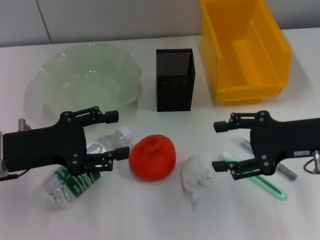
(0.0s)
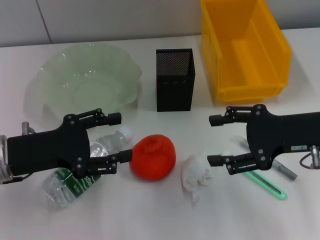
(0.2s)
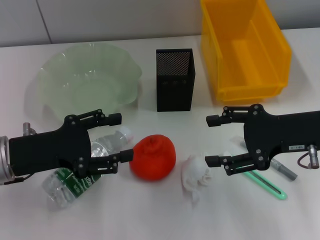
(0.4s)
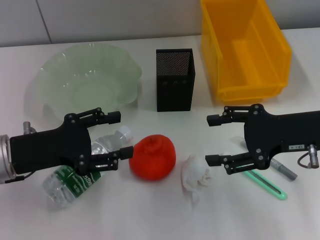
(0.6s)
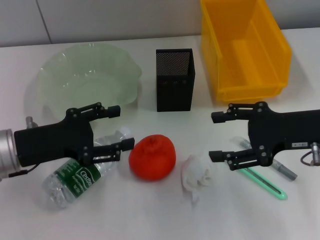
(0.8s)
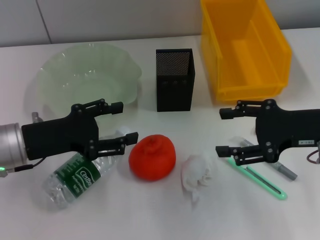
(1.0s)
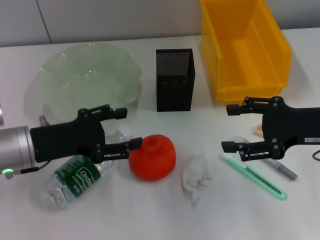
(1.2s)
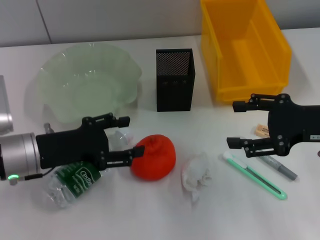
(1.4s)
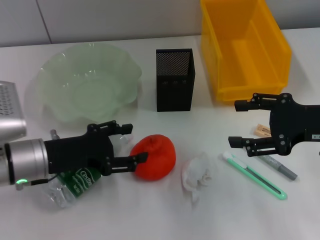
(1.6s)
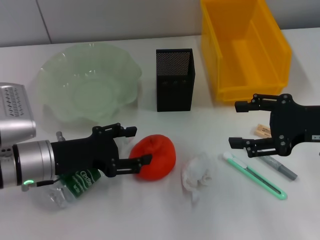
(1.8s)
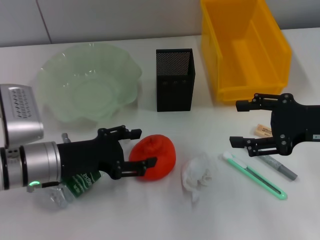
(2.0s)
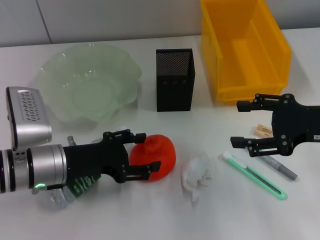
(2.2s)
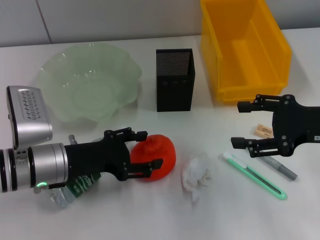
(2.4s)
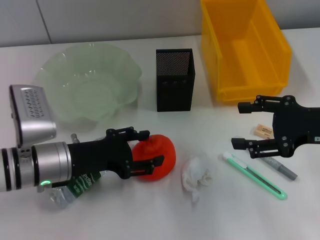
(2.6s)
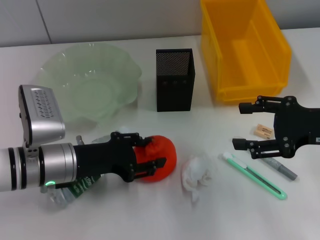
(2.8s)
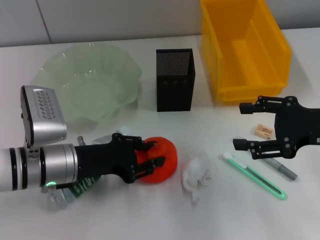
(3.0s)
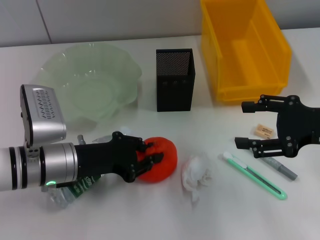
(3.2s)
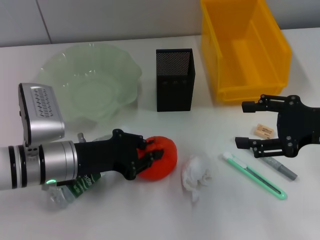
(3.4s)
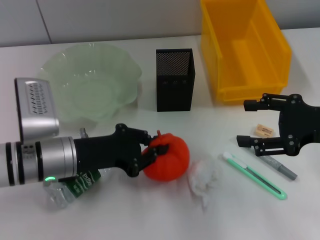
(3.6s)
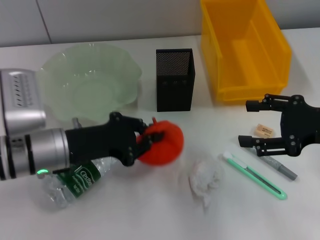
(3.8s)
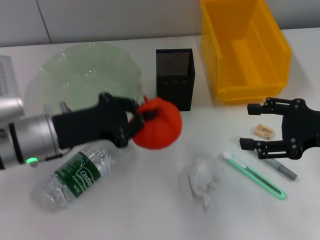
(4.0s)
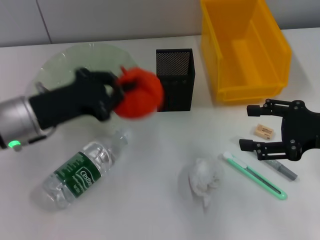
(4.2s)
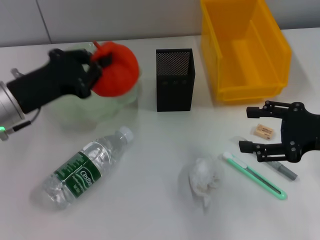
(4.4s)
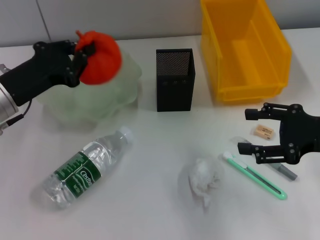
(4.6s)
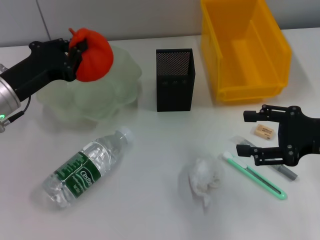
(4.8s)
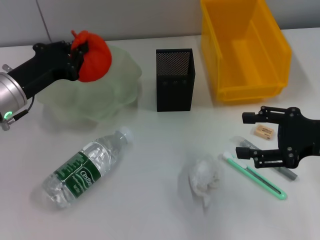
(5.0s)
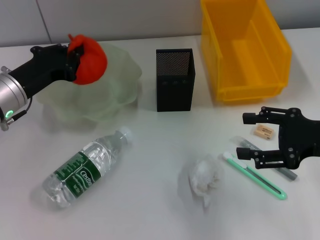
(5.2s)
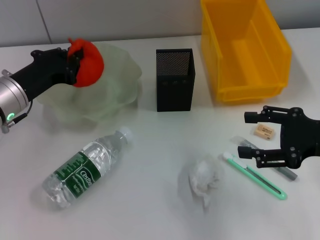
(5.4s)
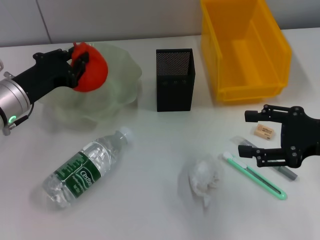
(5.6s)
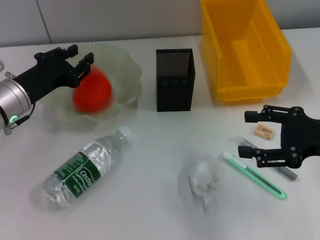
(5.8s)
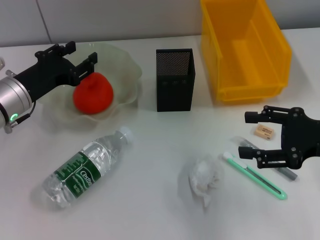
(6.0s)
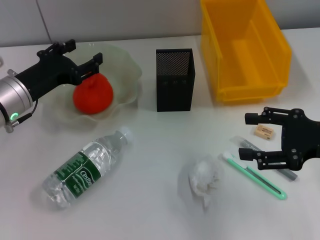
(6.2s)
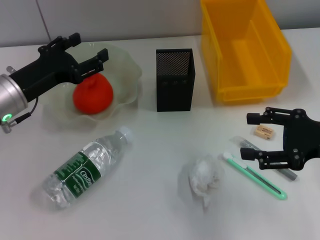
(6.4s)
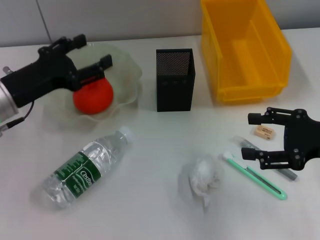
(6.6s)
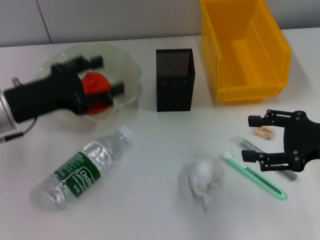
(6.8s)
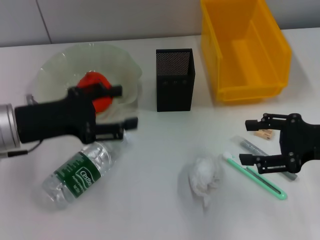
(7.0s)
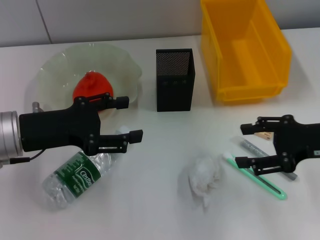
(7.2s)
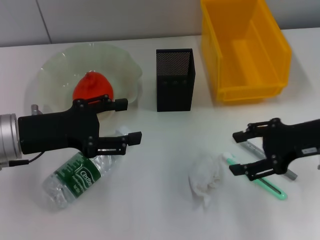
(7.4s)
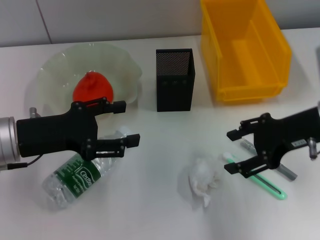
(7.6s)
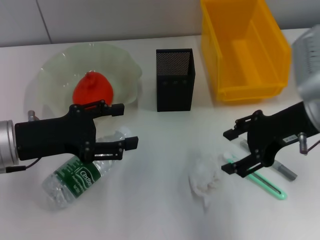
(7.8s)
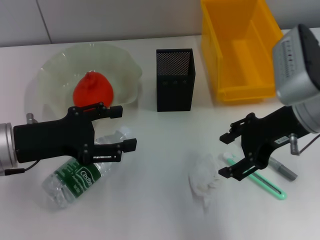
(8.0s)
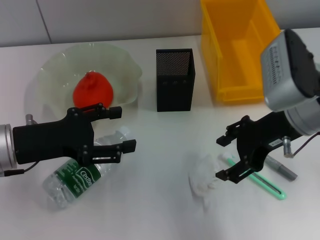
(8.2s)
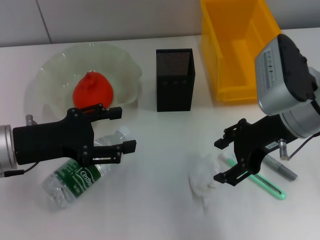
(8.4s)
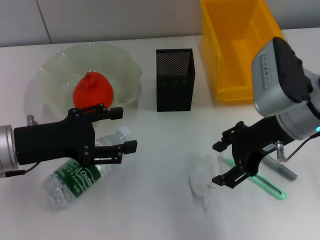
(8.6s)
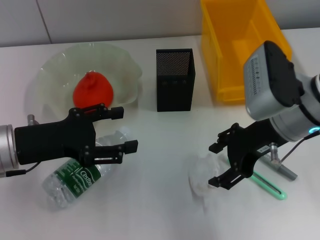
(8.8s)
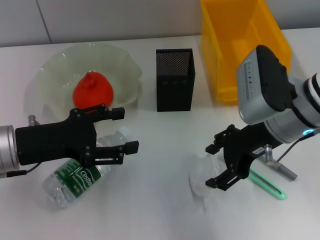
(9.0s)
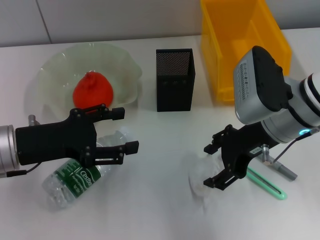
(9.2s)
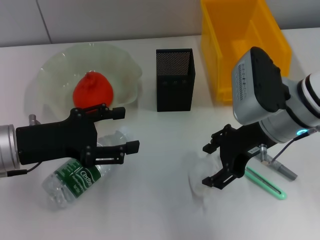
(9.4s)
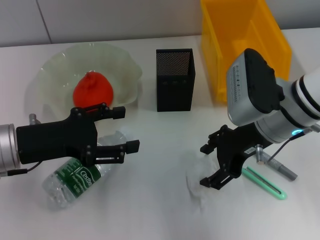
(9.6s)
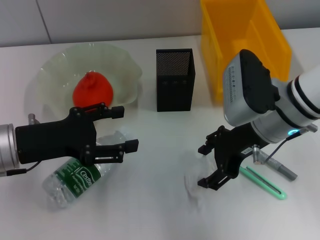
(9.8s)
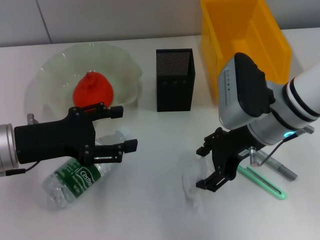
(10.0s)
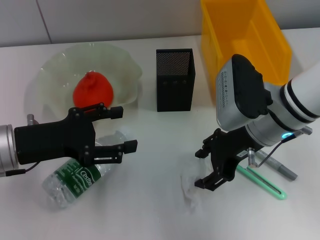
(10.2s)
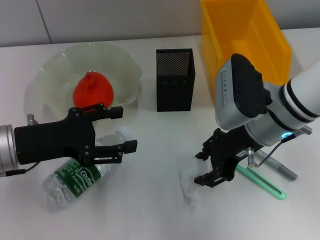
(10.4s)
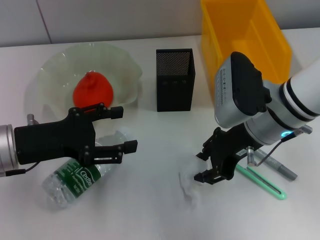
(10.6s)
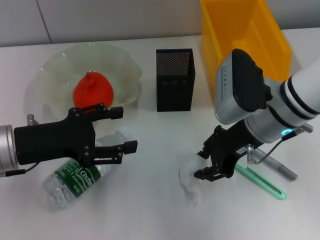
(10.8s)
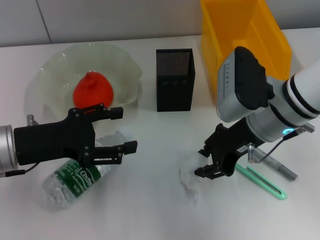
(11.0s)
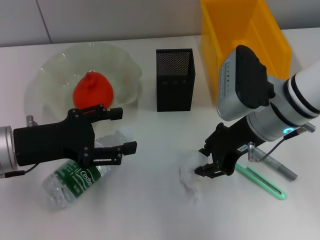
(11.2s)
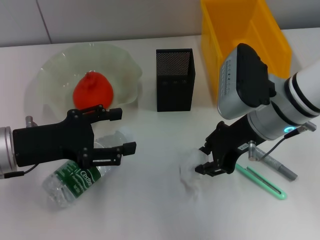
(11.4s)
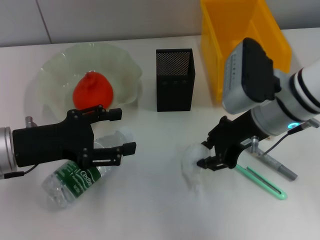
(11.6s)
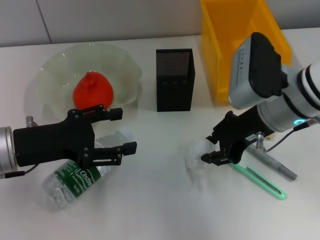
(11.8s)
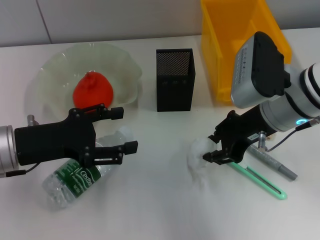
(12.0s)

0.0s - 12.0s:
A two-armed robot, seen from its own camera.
Step, 0.0s - 2.8s: Grab the orange with the left hand.
Step, 3.2s - 6.0s: Place the orange into the fruit bowl with the left hand.
Step, 6.4s - 10.8s: Grab the paper ball with the right hand.
0.0s - 1.6s: The left gripper moves about 5 cm.
1.6s - 3.0s: The left gripper closes.
3.0s - 4.4s: The left gripper moves upward and to the left, approximately 10 cm, and closes up.
4.4s - 6.0s: The left gripper changes place by roughly 5 cm, and opens up.
6.0s - 7.6s: The right gripper shifts about 5 cm forward. The left gripper travels backward by approximately 5 cm, and opens.
7.6s - 9.0s: The right gripper is displaced to the left by roughly 5 cm.
9.0s - 10.4s: The grippers move only a little.
10.4s - 12.0s: The right gripper closes.

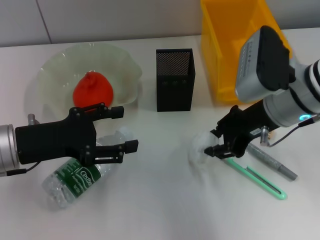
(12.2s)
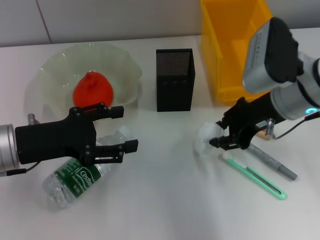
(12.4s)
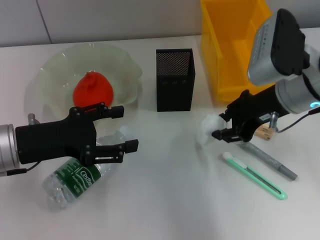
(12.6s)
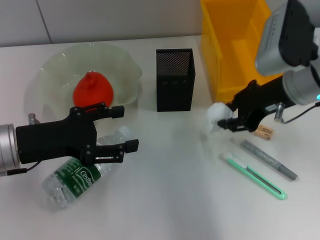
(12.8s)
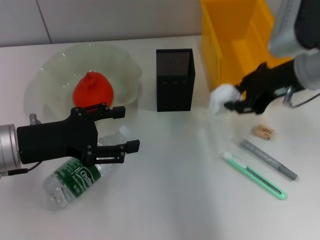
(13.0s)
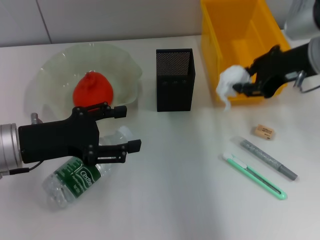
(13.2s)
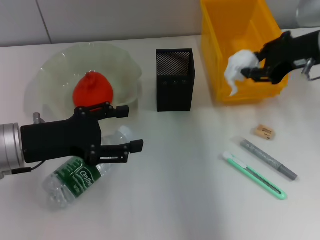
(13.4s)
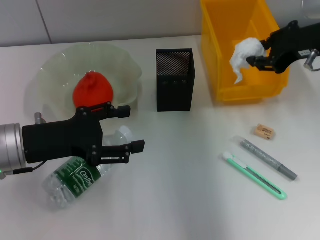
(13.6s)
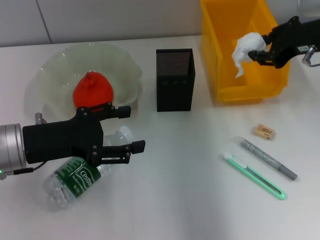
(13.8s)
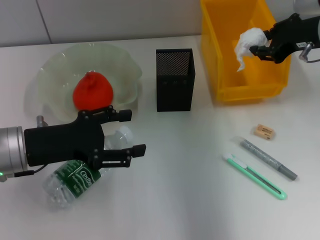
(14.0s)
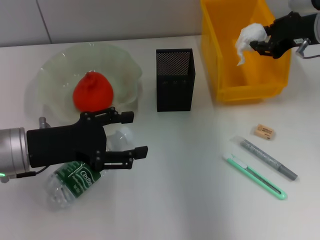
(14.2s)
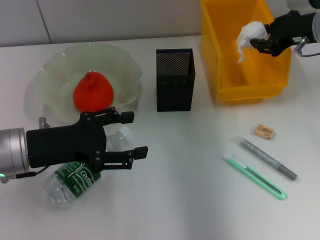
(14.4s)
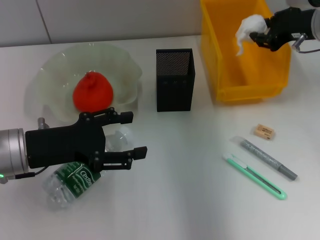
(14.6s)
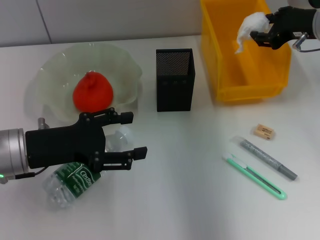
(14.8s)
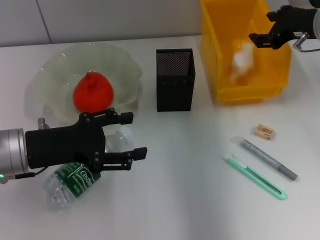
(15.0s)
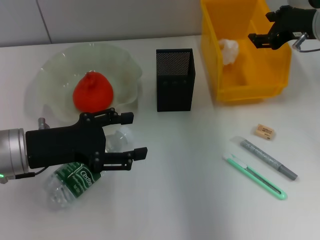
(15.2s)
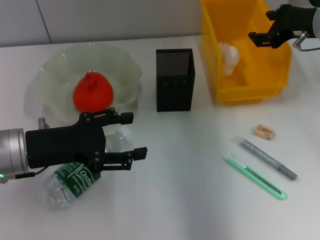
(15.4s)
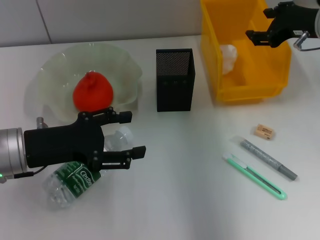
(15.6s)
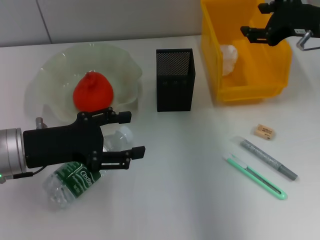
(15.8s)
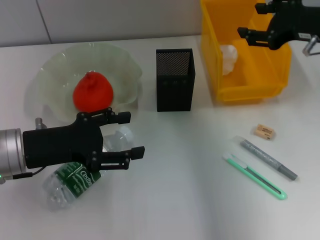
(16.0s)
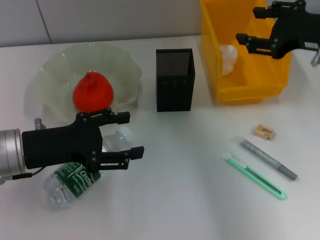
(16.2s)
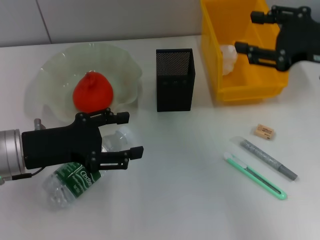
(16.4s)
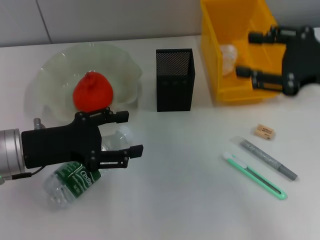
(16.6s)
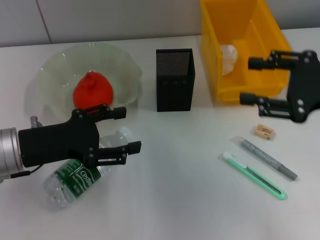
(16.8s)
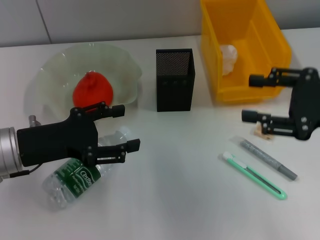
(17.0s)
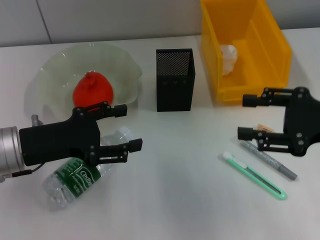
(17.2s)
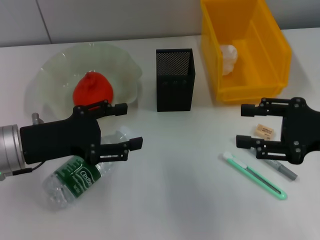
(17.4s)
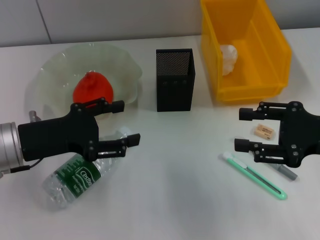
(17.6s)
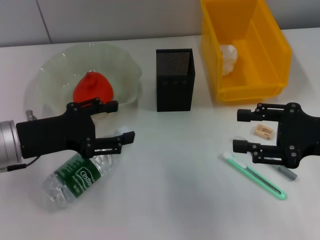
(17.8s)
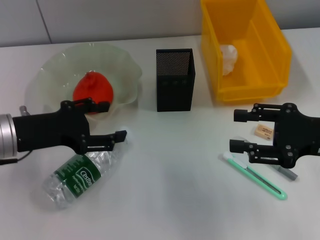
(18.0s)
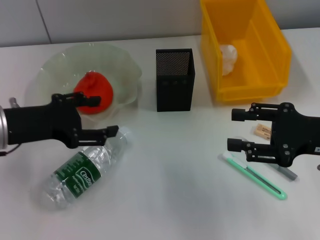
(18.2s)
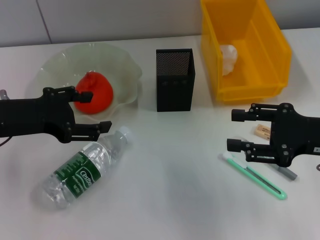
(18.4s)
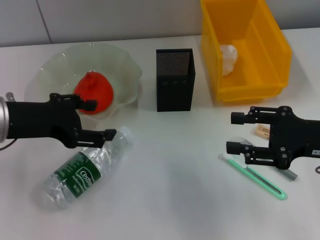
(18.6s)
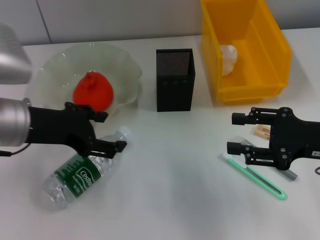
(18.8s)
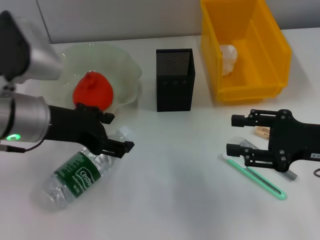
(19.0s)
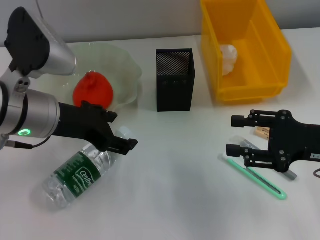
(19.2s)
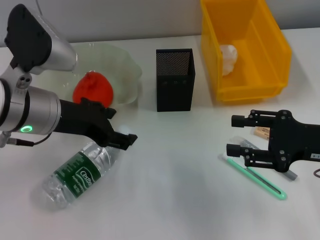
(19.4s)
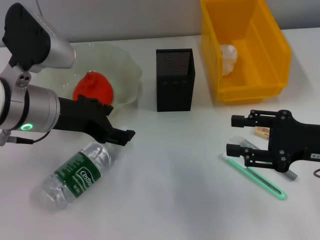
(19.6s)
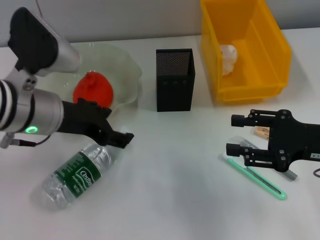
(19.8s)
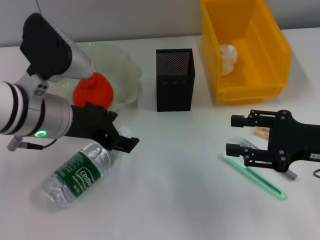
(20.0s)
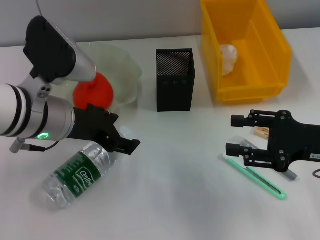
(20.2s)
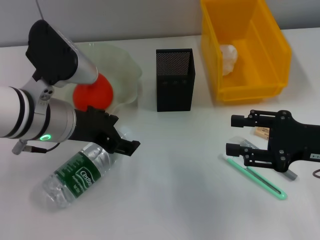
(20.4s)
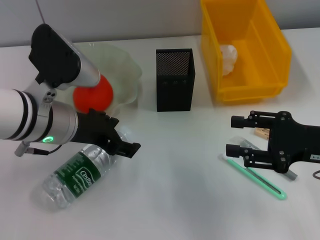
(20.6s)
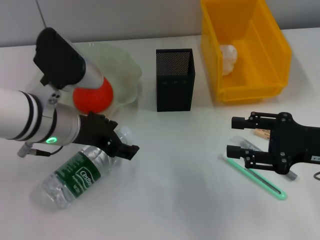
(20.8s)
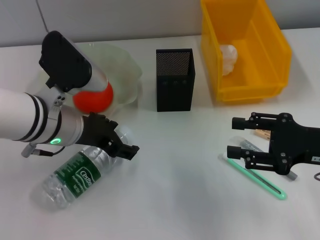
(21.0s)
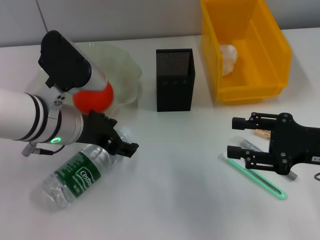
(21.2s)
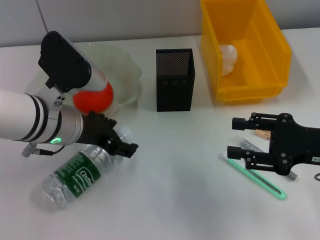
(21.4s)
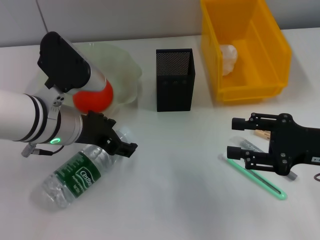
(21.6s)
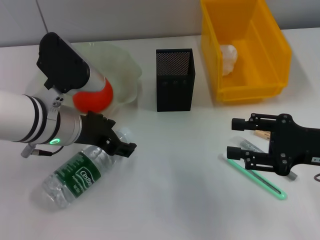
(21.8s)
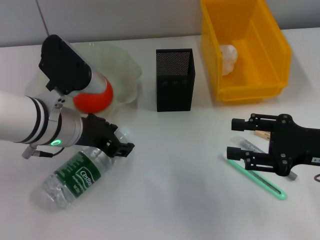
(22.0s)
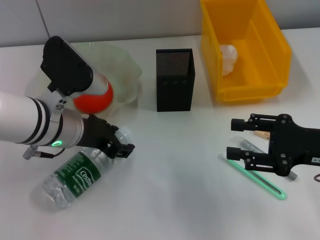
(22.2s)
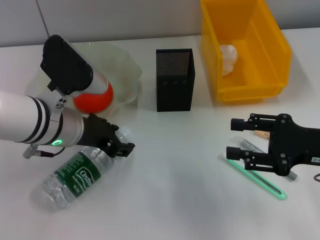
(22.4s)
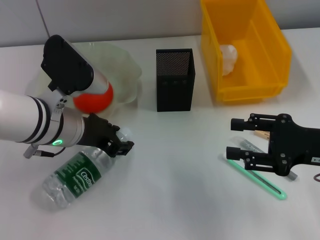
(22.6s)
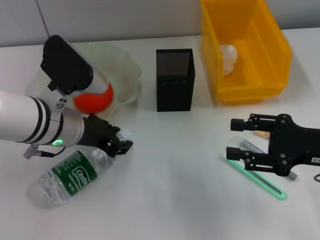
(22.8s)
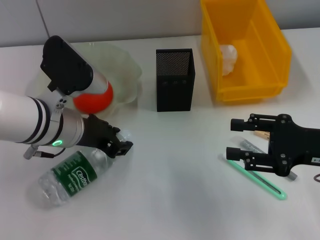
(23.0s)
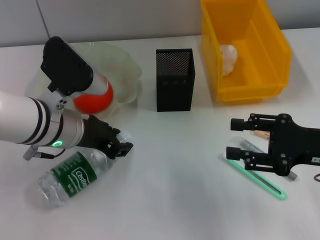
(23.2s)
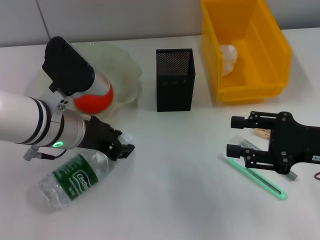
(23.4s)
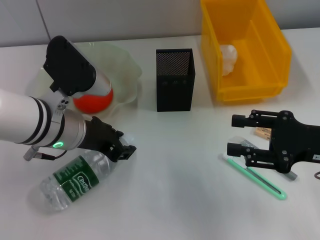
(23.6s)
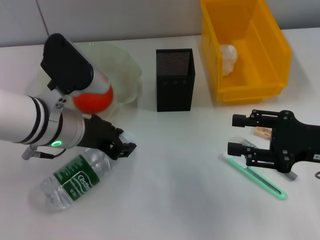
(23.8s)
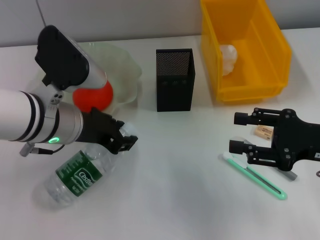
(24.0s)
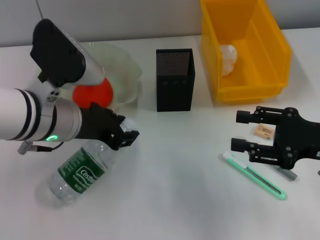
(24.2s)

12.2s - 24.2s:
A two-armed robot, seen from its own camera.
Step, 12.2s - 15.0s: Place the paper ball into the trash can with the right hand.
Step, 15.2s - 23.0s: Grab the water bottle with the left hand.
12.2s - 13.8s: The right gripper moves to the right and upward, about 10 cm.
13.8s - 15.2s: There are only small adjustments of the grippers.
15.2s - 16.6s: The right gripper goes approximately 10 cm backward.
16.6s - 18.2s: The right gripper travels downward by some 5 cm.
18.2s - 19.8s: The left gripper travels to the right by some 10 cm.
19.8s - 21.2s: The grippers stay close to where they were, moving slightly.
21.2s - 22.6s: Both grippers stay put.
22.6s - 24.2s: There are only small adjustments of the grippers.
